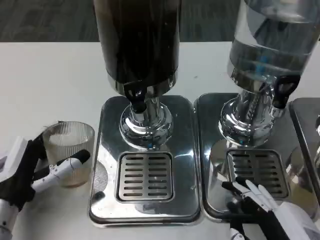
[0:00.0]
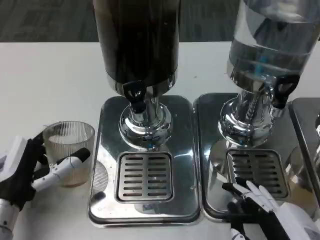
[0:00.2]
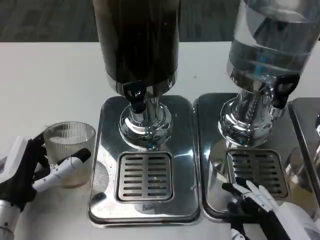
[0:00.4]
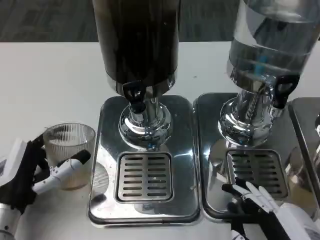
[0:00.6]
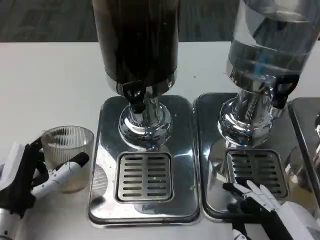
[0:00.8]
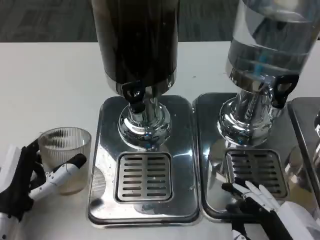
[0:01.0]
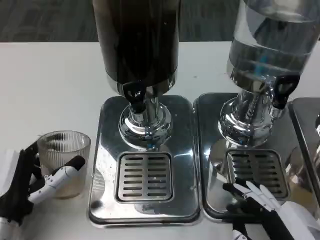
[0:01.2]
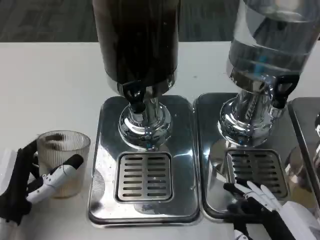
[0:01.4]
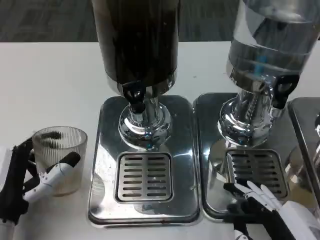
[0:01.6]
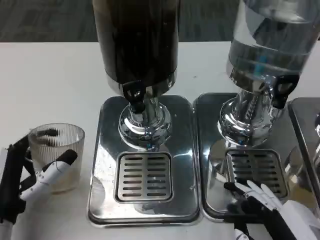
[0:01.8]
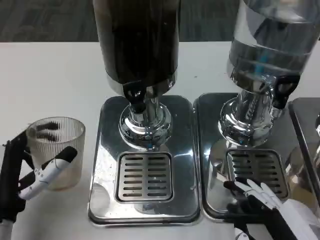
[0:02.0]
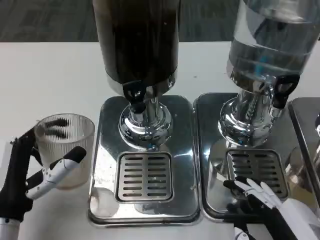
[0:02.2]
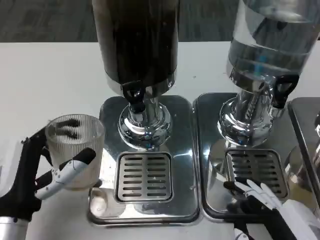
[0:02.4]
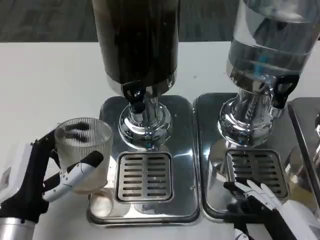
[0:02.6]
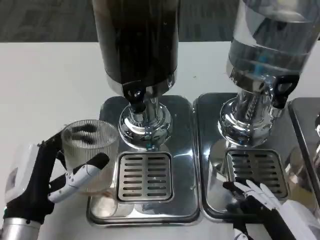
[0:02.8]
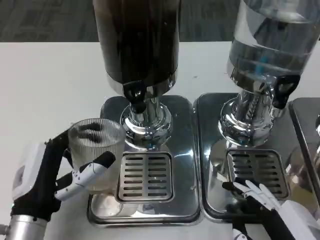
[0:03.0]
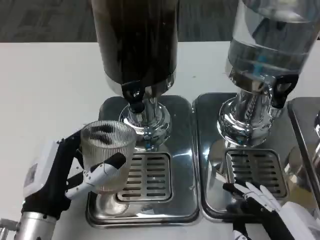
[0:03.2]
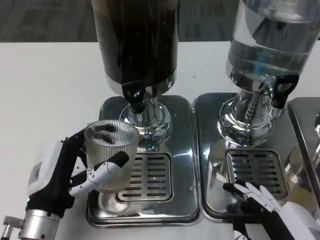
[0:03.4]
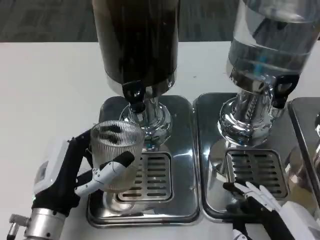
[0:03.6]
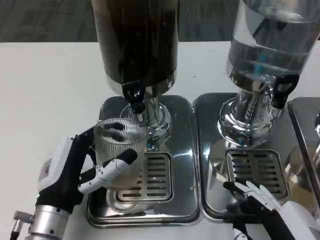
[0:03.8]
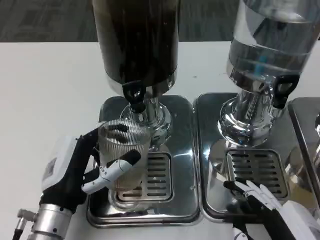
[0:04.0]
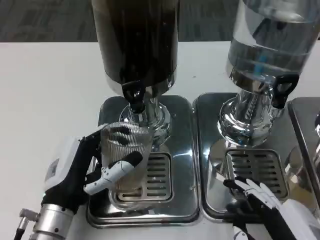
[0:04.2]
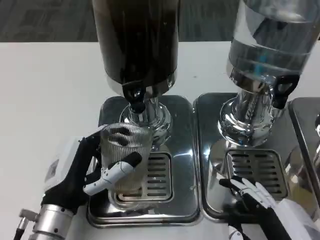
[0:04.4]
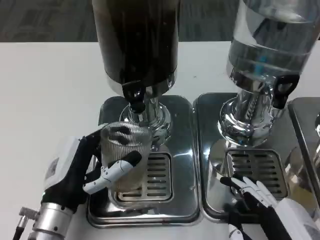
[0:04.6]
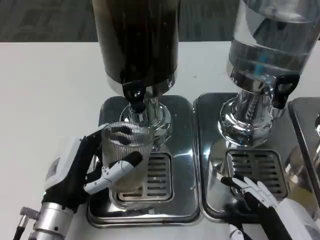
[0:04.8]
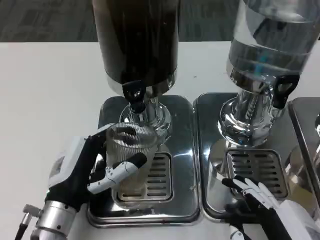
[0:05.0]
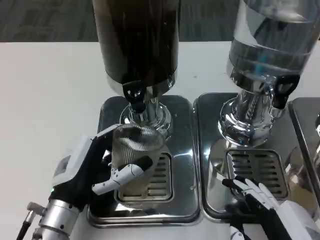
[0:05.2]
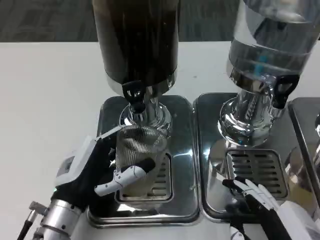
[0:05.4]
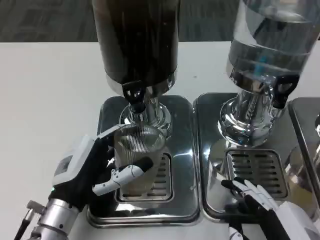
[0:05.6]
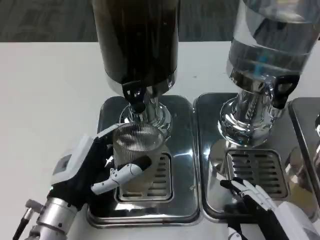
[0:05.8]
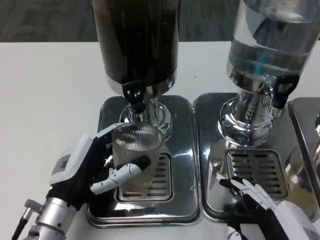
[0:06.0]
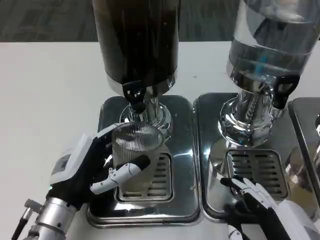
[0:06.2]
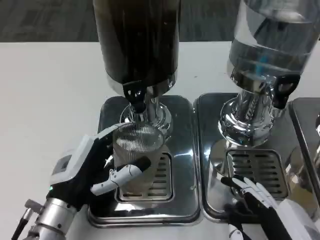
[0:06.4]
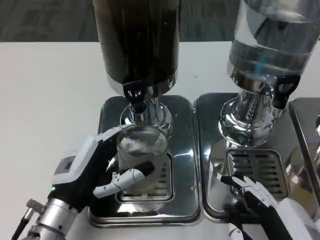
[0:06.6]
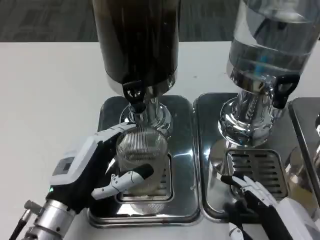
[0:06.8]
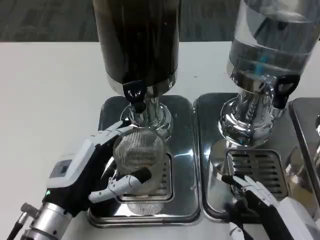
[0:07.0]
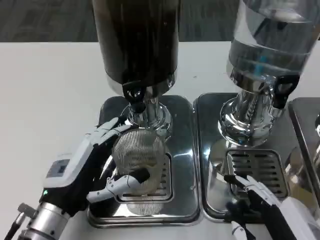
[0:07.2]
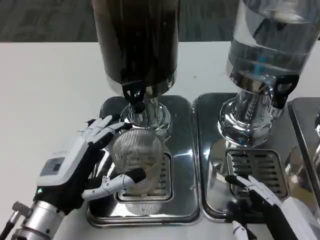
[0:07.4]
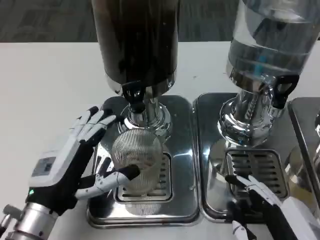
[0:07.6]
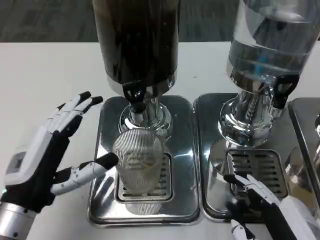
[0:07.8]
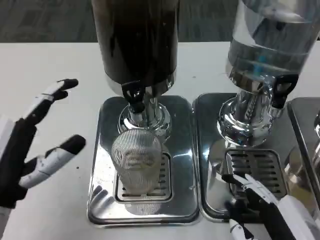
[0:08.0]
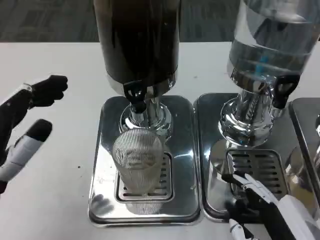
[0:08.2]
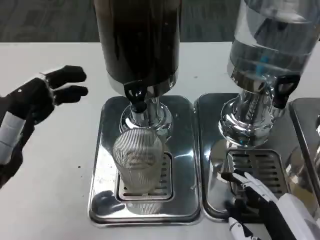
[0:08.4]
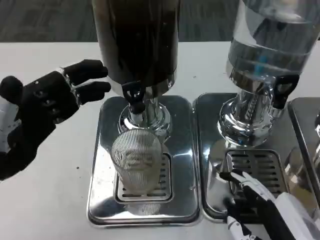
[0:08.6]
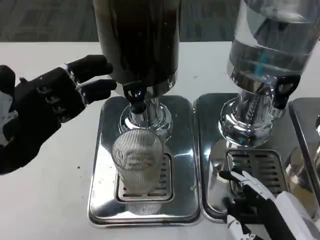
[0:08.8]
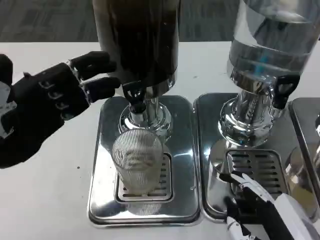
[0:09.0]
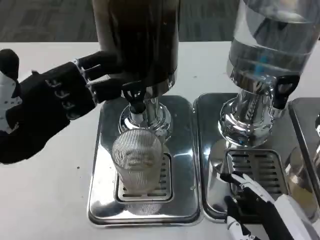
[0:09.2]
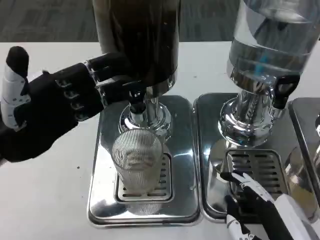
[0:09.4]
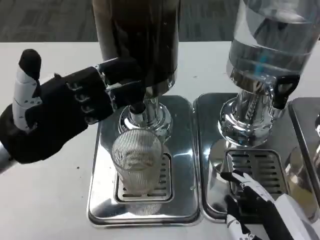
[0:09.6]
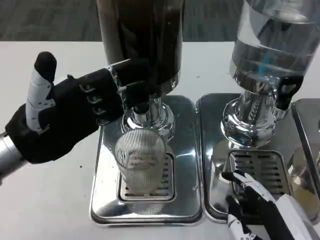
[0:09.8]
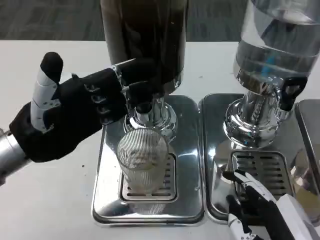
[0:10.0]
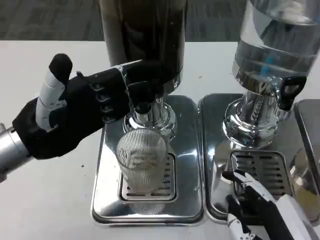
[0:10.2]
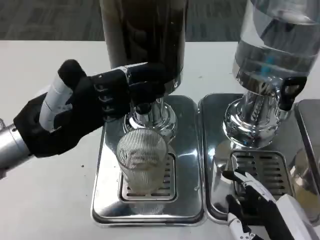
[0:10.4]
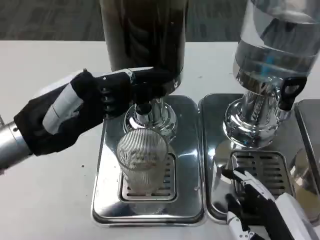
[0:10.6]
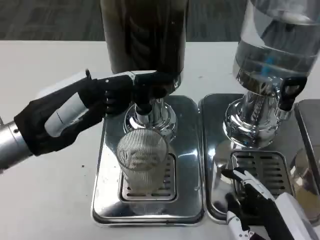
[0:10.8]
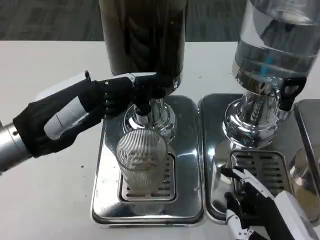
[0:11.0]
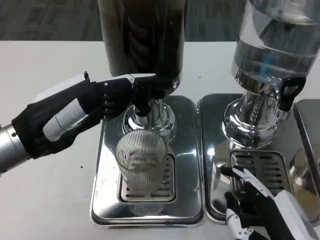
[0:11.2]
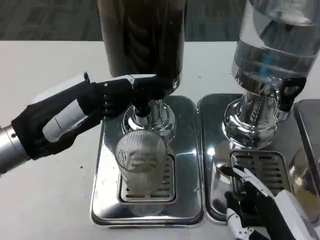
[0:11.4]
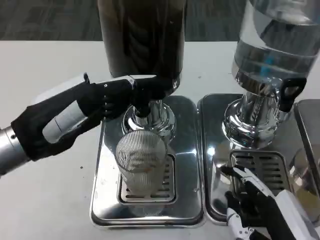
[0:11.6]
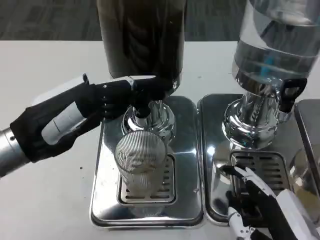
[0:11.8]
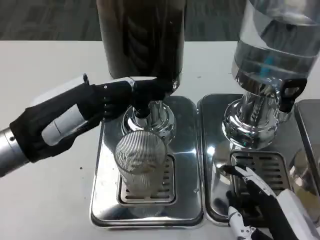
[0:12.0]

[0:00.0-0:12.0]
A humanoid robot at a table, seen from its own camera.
Task of the whole recording: Grasp the cup under the faucet to collect the drink, then remove the cup.
0:00.0 to 0:01.6: The hands move only a little.
0:01.6 to 0:03.0: The hands stay close to where they were, moving slightly.
0:03.0 to 0:06.0: There are only small adjustments of the hands.
0:06.0 to 0:07.6: The hands stay close to where they were, moving slightly.
0:07.6 to 0:09.0: The left hand heads upward and to the left, covering roughly 15 cm.
0:10.4 to 0:12.0: The hands make only small movements.

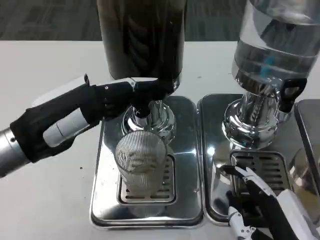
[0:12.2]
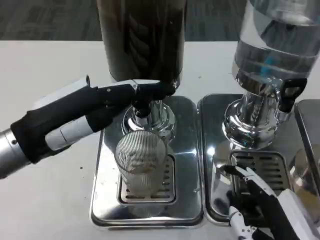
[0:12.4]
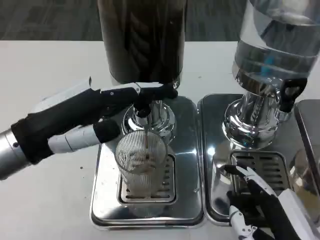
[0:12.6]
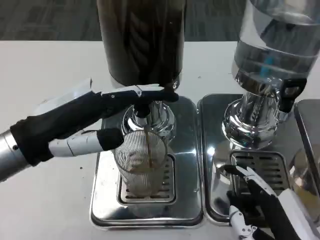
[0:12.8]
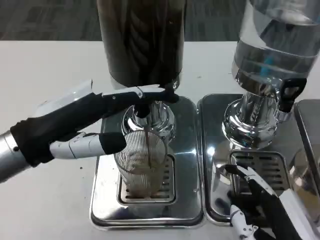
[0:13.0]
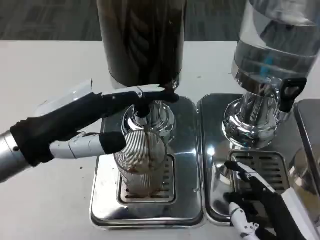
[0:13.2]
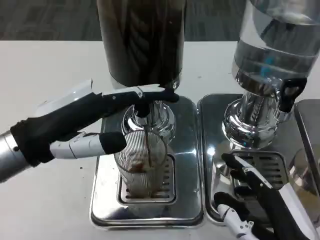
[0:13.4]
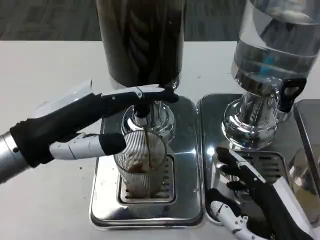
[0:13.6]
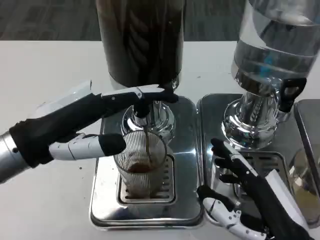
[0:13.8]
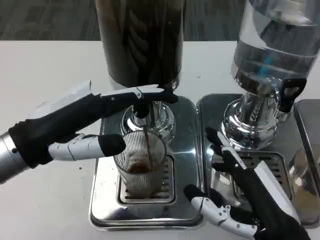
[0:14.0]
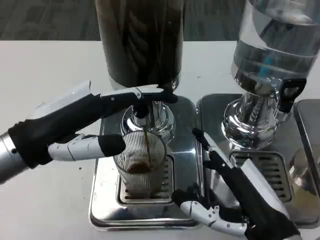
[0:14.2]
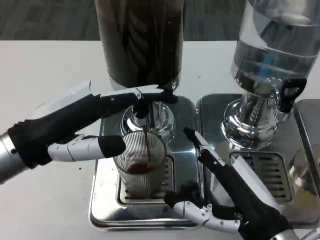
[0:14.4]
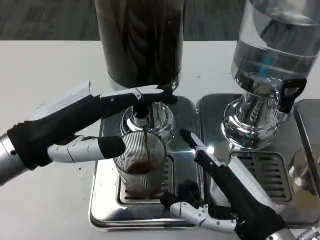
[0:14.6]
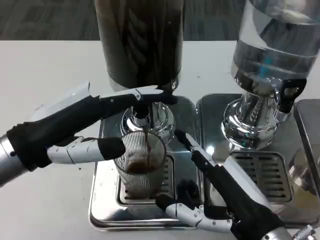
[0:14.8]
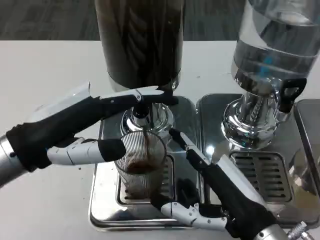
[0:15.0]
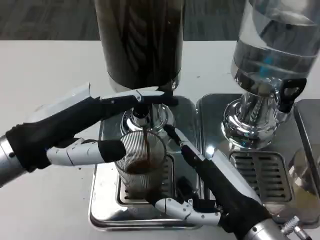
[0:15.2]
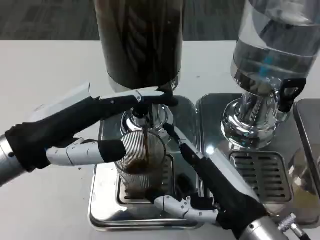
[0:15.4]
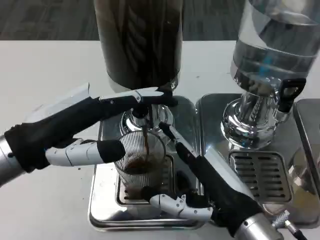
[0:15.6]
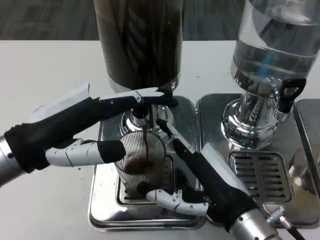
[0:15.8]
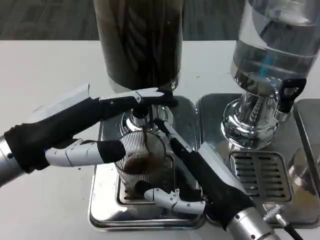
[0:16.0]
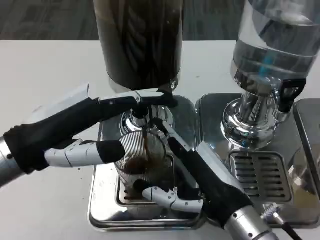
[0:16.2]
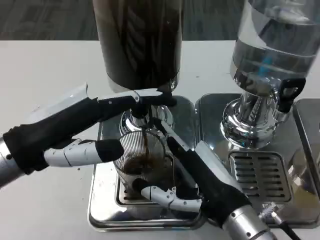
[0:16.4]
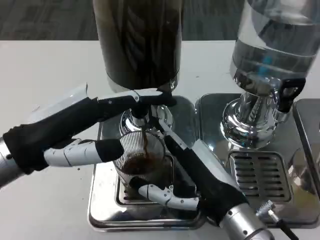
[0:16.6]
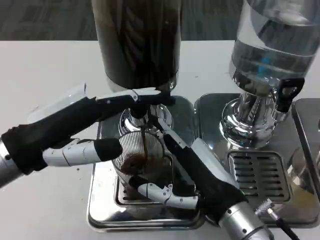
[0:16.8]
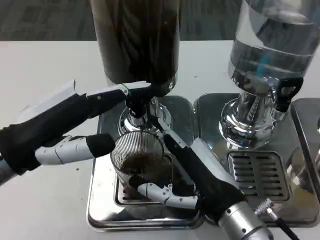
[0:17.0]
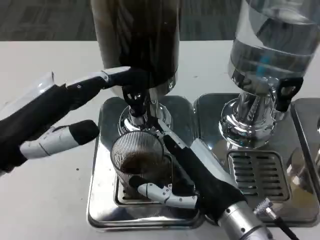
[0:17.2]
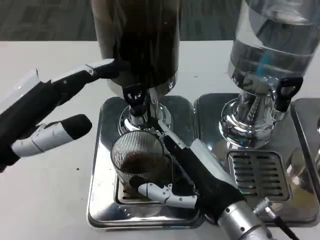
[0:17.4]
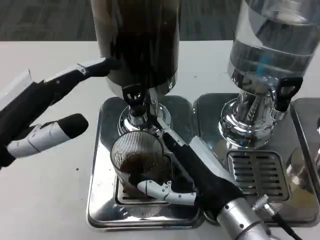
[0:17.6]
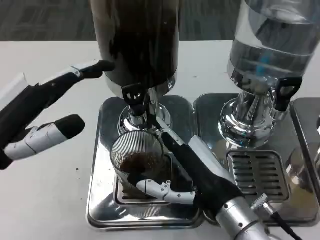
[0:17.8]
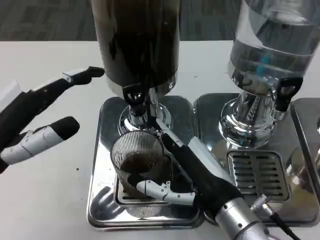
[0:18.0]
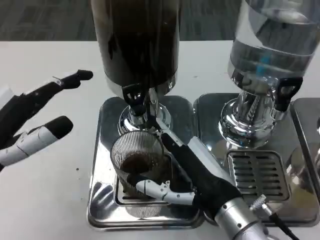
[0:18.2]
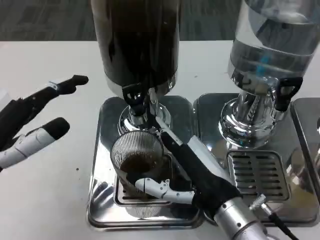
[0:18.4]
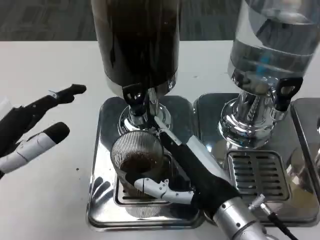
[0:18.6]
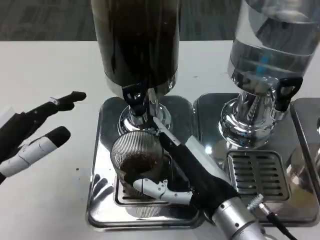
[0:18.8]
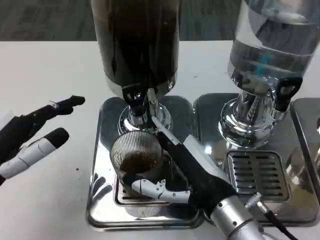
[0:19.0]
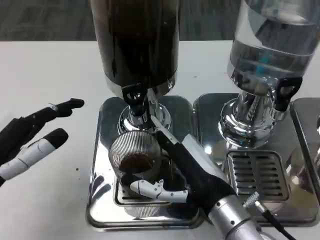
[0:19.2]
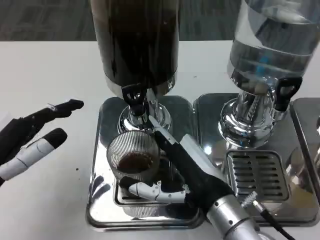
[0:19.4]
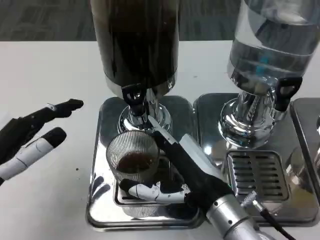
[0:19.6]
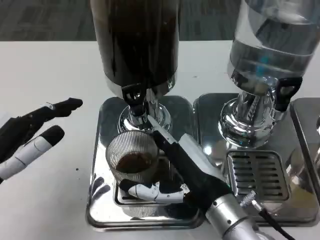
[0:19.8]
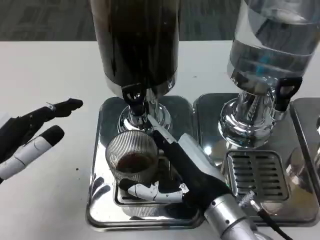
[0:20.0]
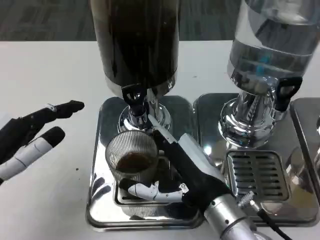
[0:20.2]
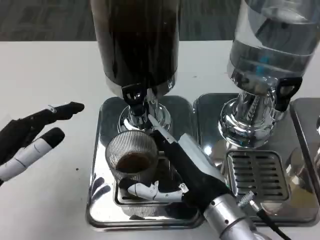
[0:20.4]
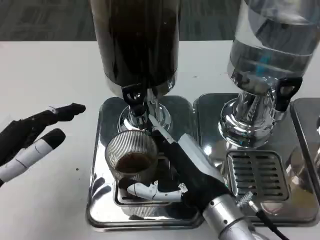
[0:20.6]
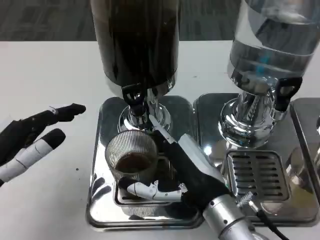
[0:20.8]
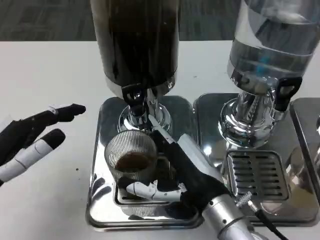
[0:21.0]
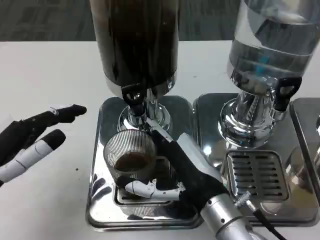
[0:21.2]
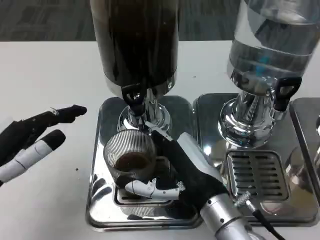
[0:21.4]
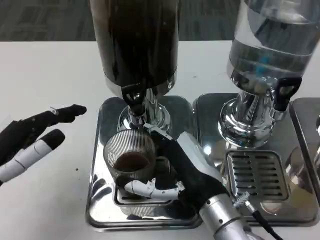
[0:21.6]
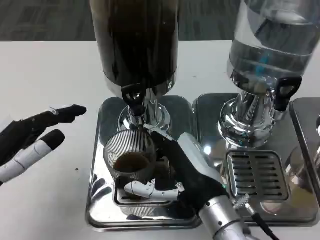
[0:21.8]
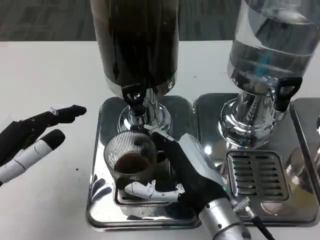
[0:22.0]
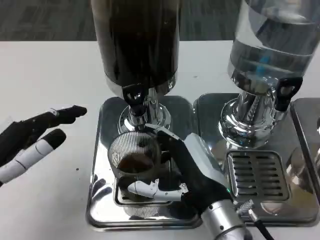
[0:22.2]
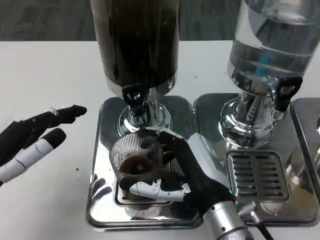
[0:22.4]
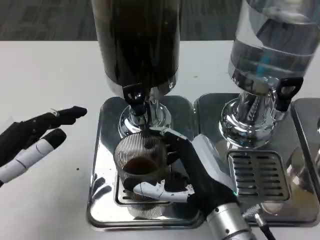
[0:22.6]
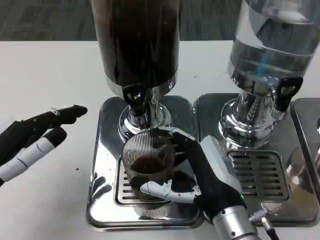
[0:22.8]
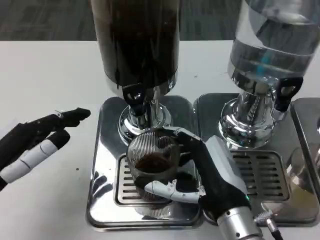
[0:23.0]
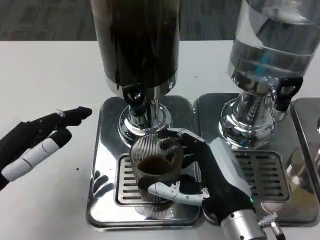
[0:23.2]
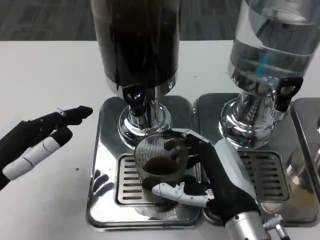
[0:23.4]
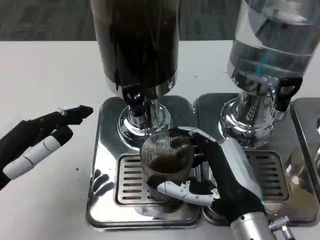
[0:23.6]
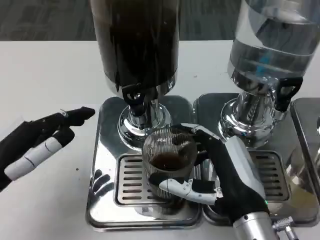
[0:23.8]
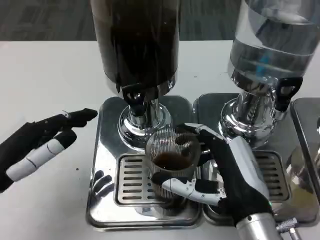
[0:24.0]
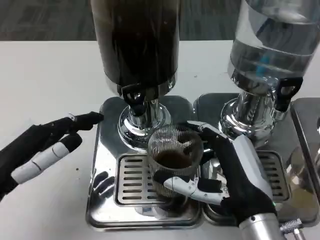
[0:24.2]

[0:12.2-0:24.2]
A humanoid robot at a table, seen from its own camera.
Task of the whole recording: Grasp the cup under the faucet to collect the drink, then remove the cup.
0:12.2 to 0:13.8: The hands move only a little.
0:13.8 to 0:15.2: The right hand ends up about 5 cm from where it was.
0:15.2 to 0:16.6: There are only small adjustments of the hands.
0:16.6 to 0:18.2: The left hand moves about 5 cm.
0:18.2 to 0:19.8: The hands make only small movements.
0:19.8 to 0:21.2: Neither hand changes place.
0:21.2 to 0:22.6: The hands stay close to where they were, moving slightly.
